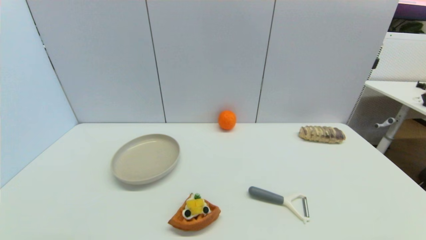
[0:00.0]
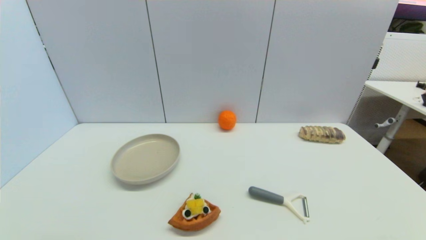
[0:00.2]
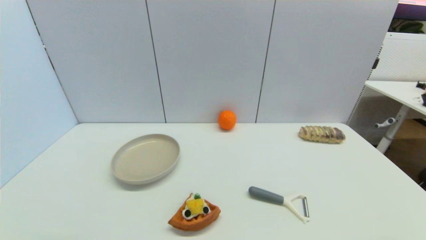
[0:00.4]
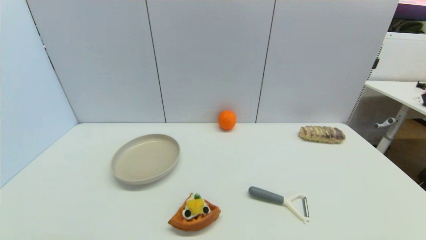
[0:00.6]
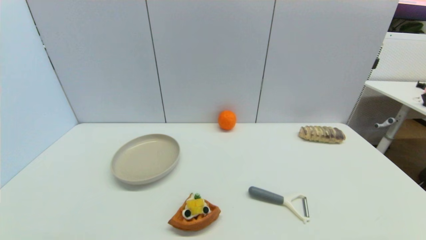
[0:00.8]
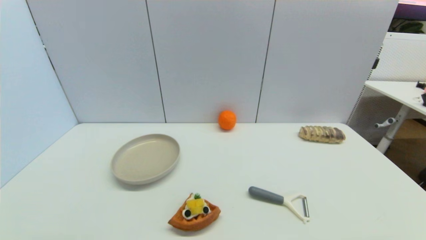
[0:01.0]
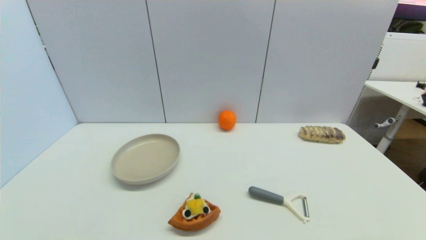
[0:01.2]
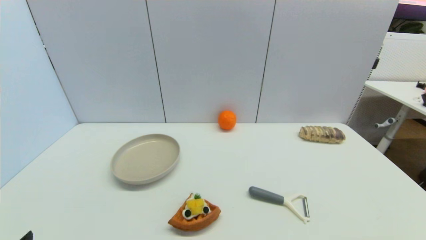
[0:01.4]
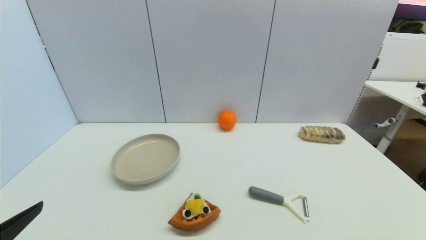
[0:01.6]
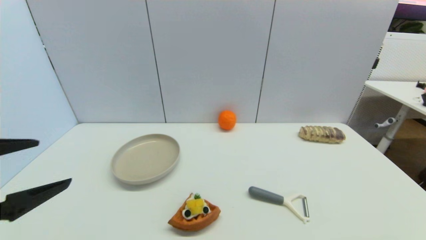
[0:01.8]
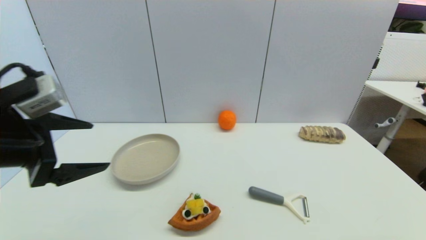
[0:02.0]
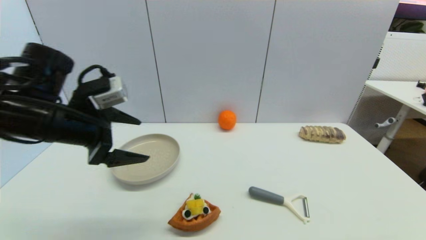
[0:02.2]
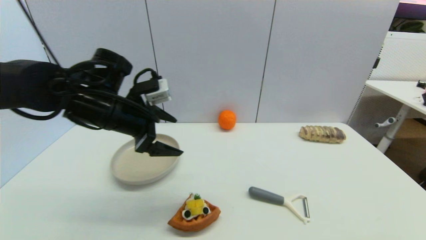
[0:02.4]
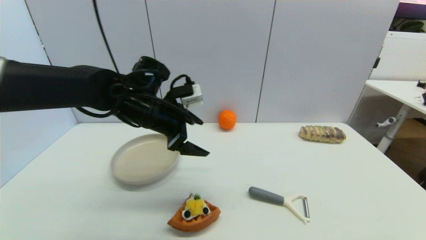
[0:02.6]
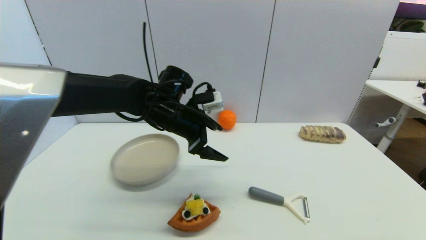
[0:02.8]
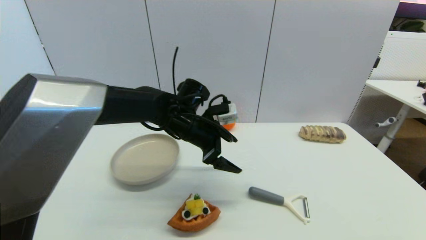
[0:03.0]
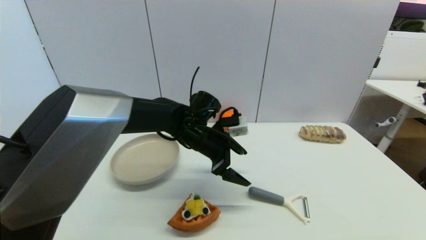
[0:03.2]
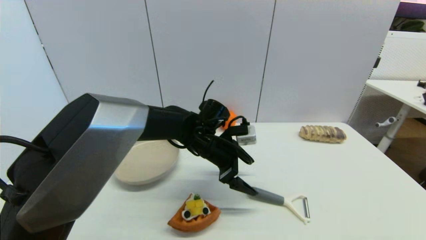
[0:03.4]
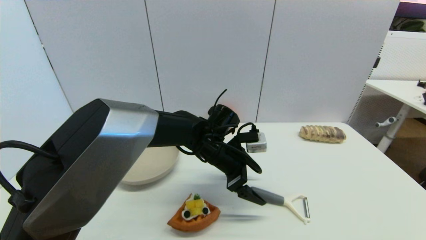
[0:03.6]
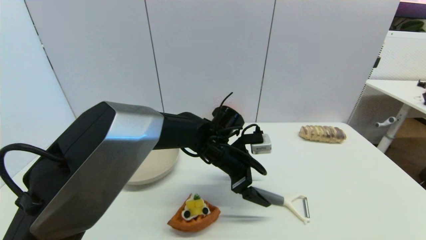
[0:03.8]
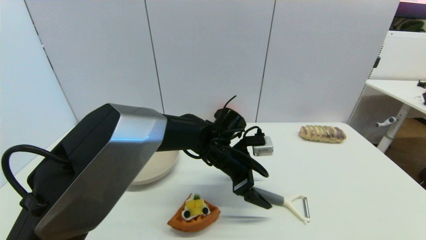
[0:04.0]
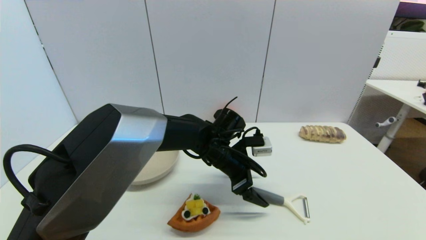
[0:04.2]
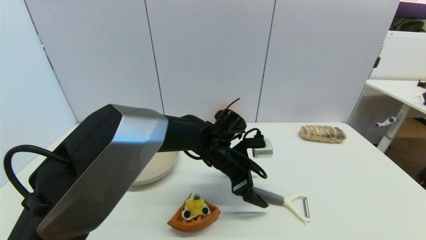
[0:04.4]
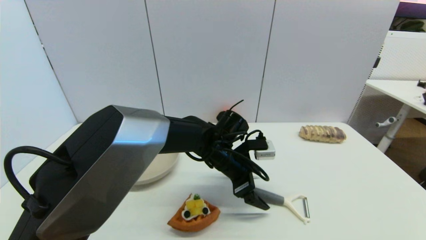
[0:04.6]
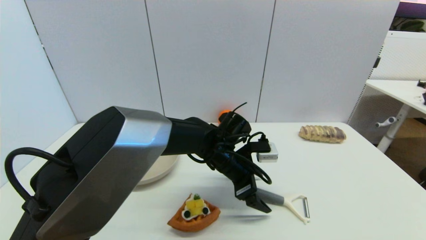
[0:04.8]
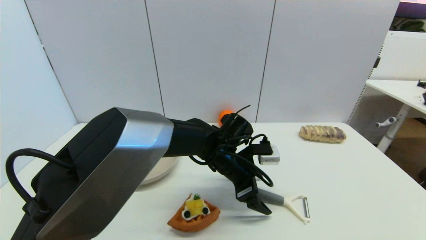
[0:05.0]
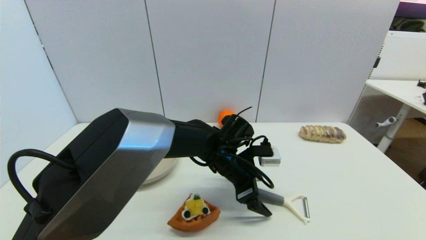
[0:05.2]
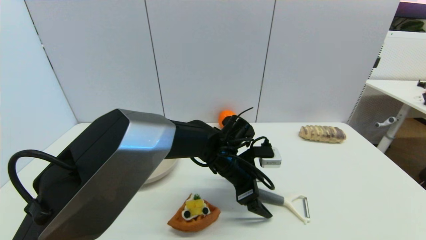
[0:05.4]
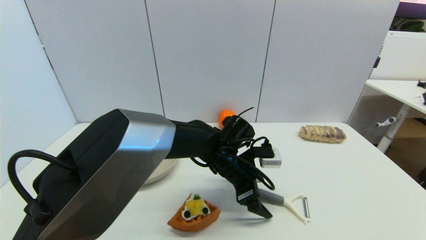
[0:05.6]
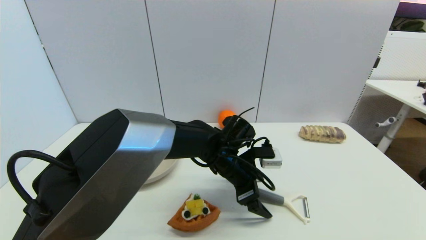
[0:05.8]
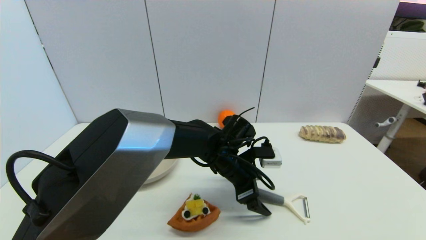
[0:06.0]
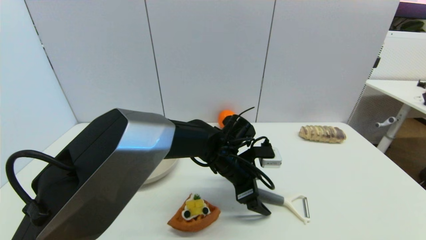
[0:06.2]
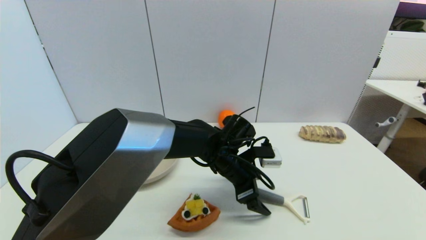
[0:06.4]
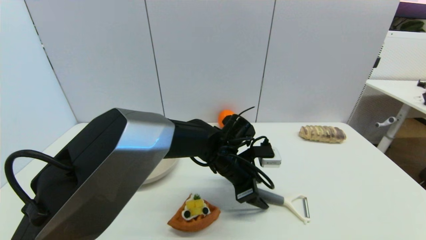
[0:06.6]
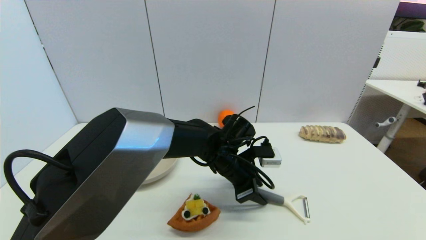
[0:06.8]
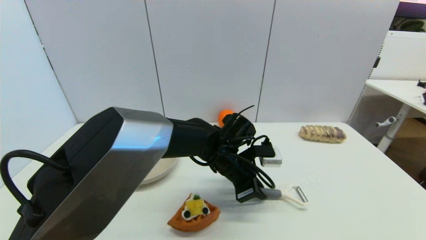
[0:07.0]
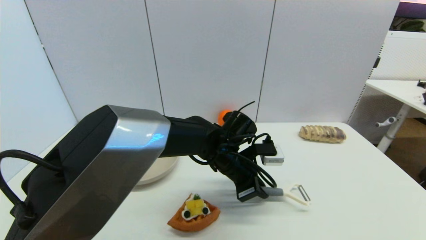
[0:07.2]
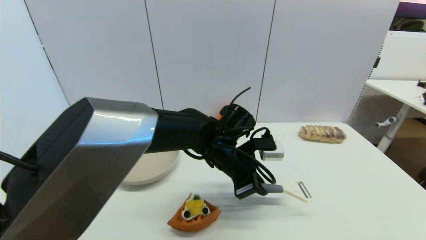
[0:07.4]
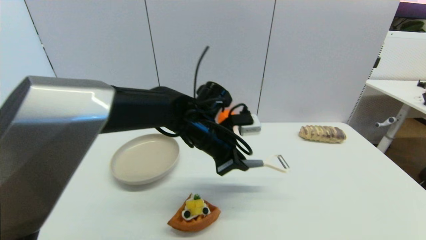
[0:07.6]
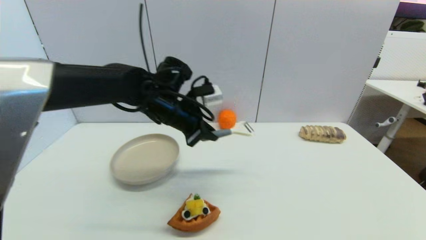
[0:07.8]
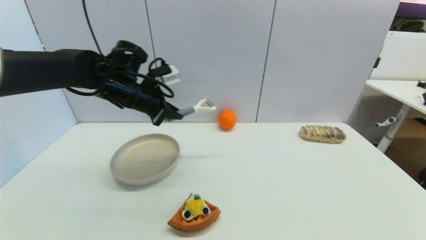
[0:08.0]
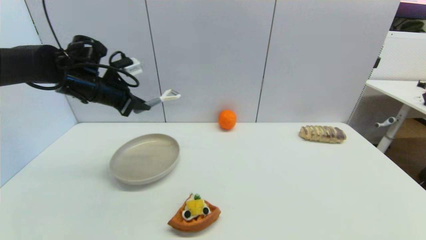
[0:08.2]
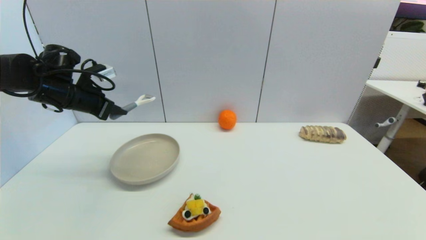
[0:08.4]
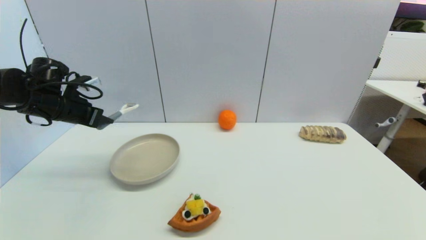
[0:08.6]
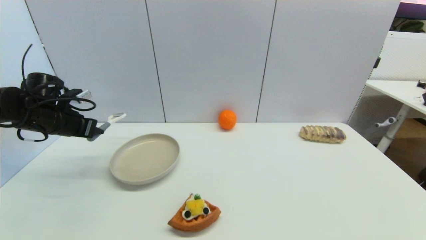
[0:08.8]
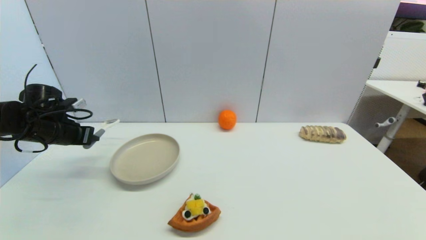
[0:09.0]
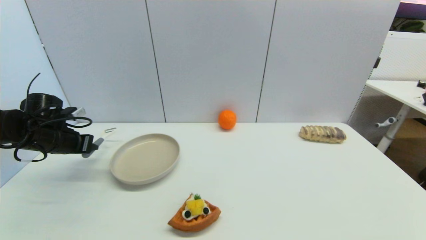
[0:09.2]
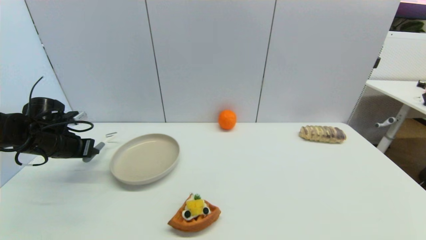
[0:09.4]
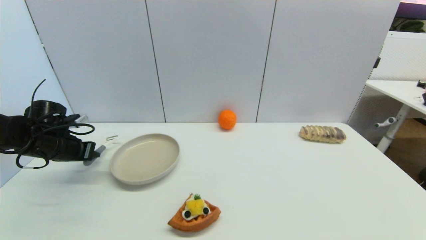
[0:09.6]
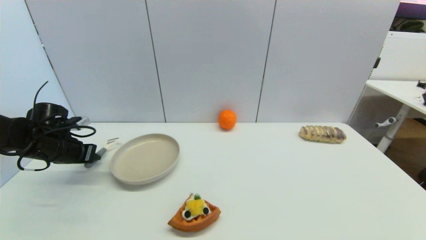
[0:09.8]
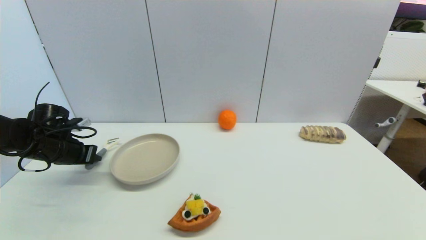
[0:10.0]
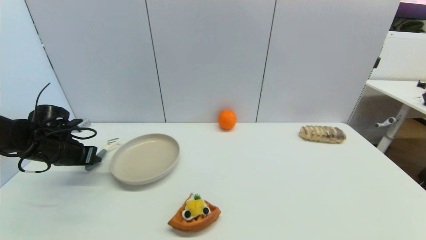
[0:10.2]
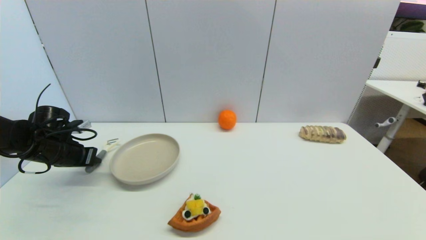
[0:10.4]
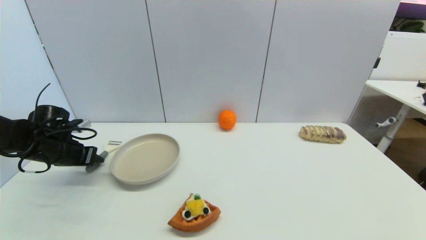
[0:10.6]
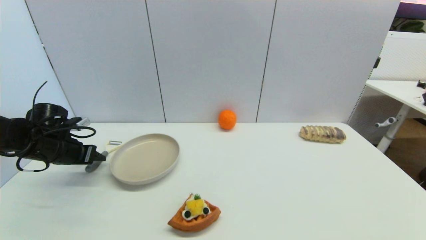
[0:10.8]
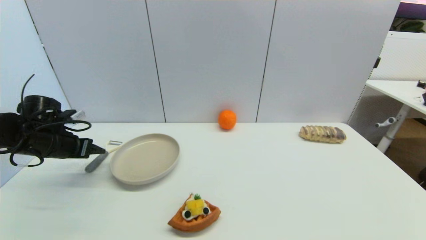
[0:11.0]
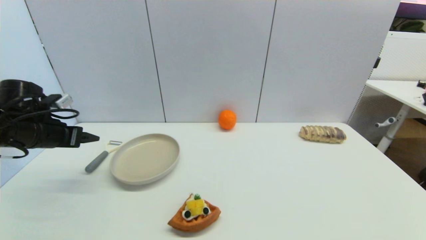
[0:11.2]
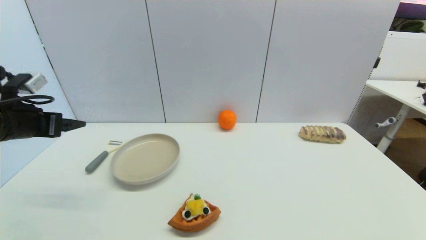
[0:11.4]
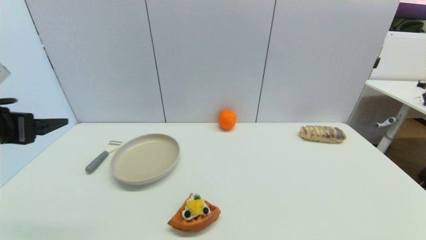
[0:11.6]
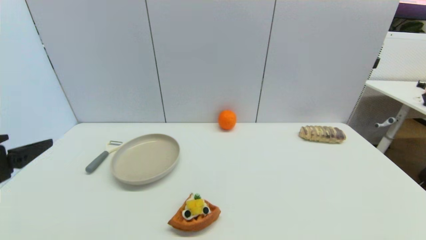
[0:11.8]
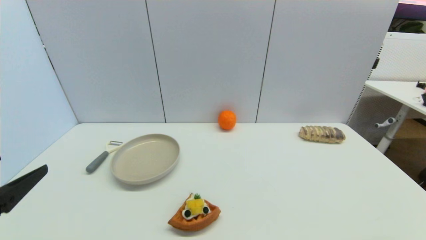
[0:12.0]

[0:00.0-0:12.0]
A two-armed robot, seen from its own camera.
Step, 0:01.4 to 0:07.2: Grasp the peeler with left gripper.
Step, 0:07.6 to 0:11.0: Place the peeler on the table with left gripper.
0:00.0 to 0:01.6: The left gripper is displaced upward and forward by approximately 15 cm.
0:01.6 to 0:03.0: The left gripper shifts some 40 cm forward and to the right.
0:03.0 to 0:04.4: The left gripper travels to the right and downward by roughly 10 cm.
0:04.4 to 0:06.0: The grippers stay close to where they were, moving slightly.
0:06.0 to 0:07.6: The left gripper goes roughly 10 cm upward and to the left, and closes its fingers.
0:07.6 to 0:09.0: The left gripper is displaced to the left by some 35 cm.
0:09.0 to 0:10.4: There are only small adjustments of the grippers.
0:10.4 to 0:12.0: The left gripper moves backward, roughly 25 cm, and opens up.

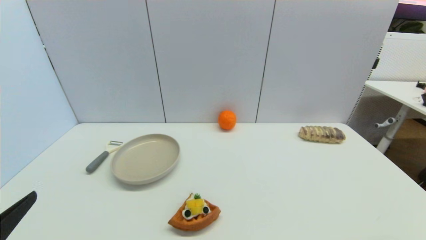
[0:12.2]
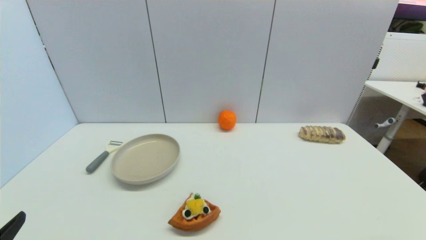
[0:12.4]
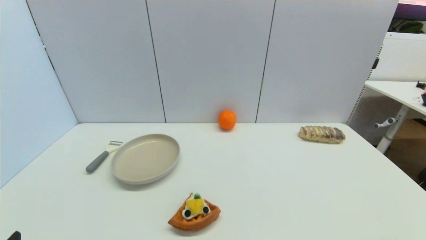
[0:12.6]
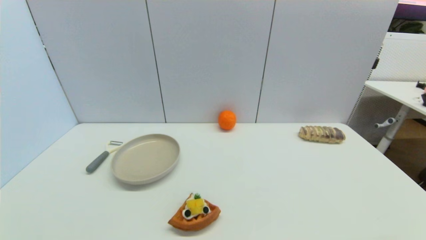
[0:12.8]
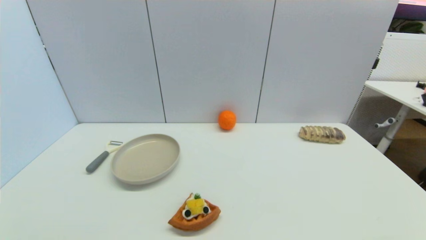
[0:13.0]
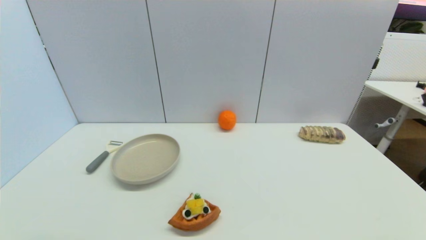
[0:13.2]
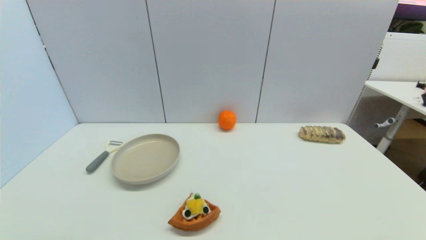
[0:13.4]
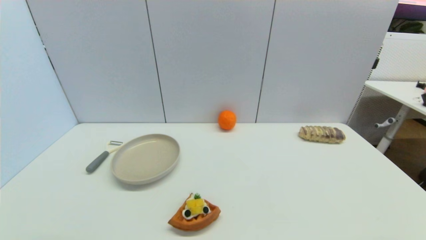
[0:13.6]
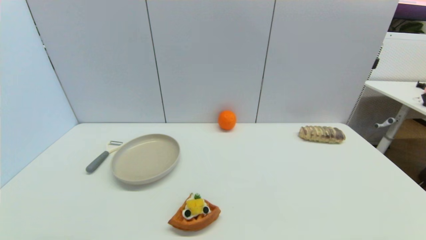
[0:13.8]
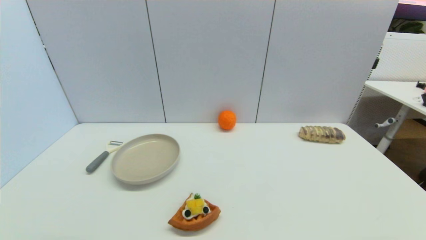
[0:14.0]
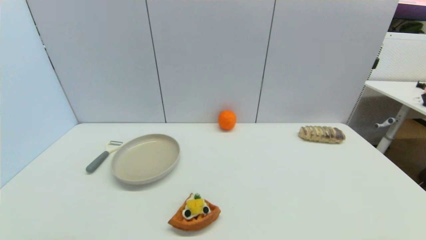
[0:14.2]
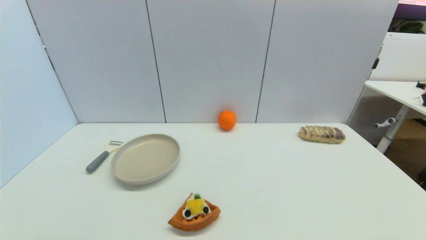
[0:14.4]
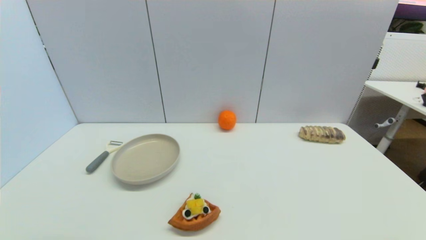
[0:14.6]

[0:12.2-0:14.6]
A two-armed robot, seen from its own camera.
0:12.2 to 0:13.4: The left gripper travels downward by about 10 cm.
0:13.4 to 0:14.6: Both grippers stay put.
